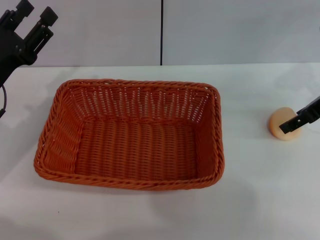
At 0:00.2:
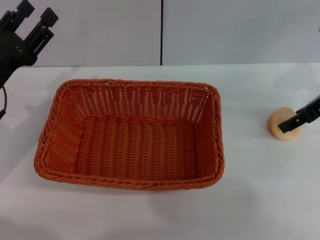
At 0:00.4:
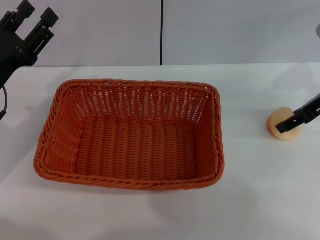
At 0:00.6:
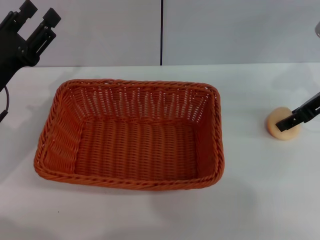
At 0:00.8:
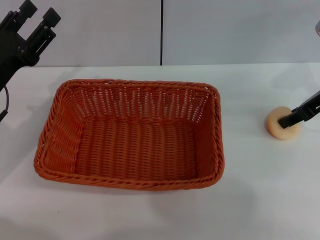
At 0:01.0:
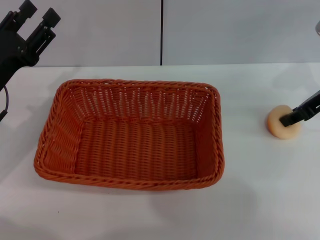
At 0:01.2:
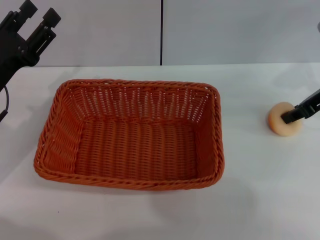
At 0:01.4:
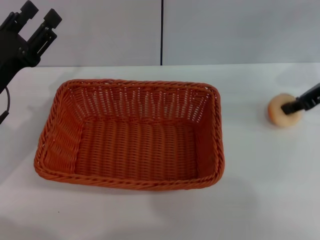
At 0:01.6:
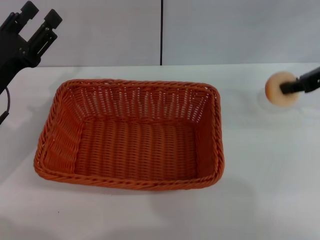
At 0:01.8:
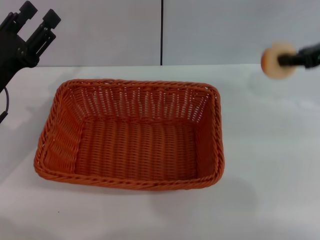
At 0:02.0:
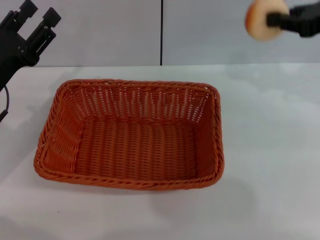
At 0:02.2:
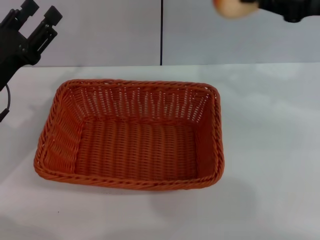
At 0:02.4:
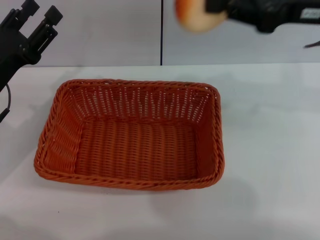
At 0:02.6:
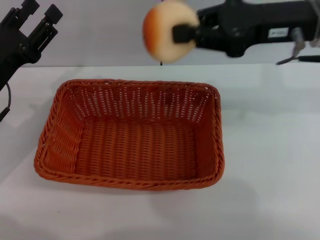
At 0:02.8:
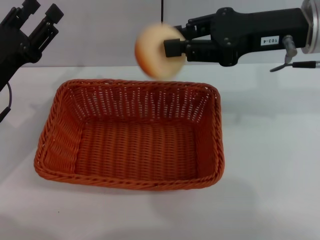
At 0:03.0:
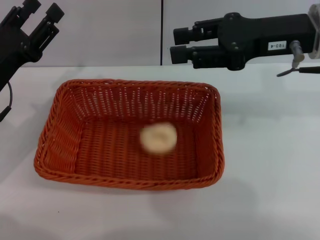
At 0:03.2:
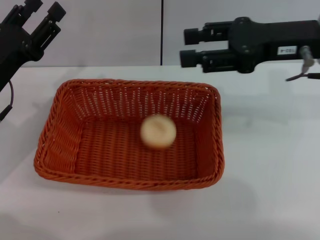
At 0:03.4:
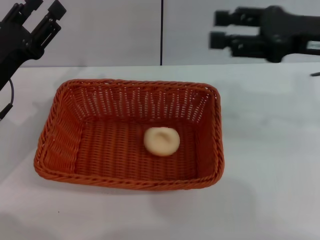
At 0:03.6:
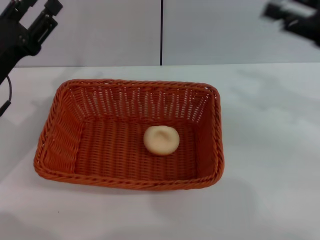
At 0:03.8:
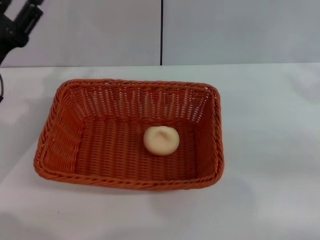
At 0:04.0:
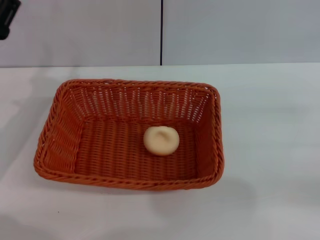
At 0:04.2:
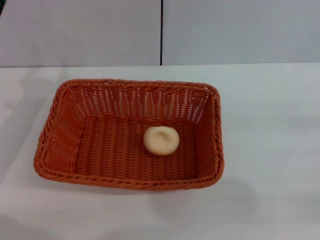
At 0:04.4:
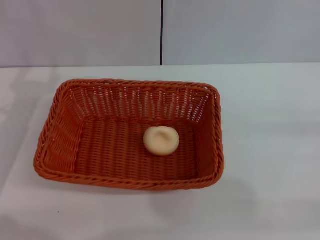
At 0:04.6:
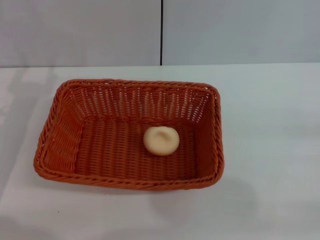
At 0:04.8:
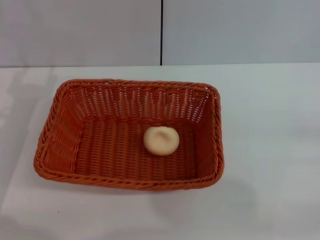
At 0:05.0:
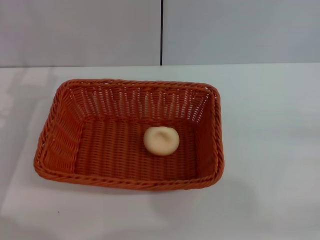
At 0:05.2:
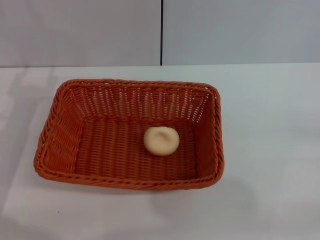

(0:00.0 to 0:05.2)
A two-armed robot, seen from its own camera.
Step, 0:01.6 - 0:03.0: Place the egg yolk pastry into the basket with the right gripper.
0:00.0 - 0:01.8: The right gripper closes up.
0:01.8 - 0:03.4: The right gripper goes approximately 5 cm to the left, and opens up.
0:03.4 - 0:05.2: The right gripper shifts about 25 cm to the right, backward and downward.
